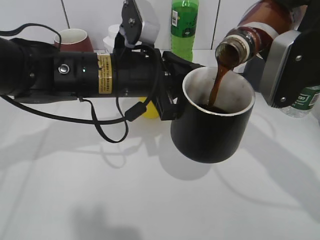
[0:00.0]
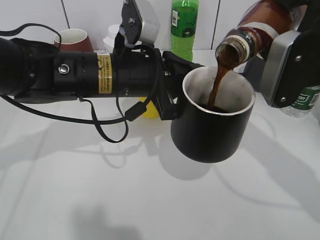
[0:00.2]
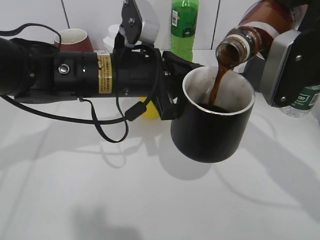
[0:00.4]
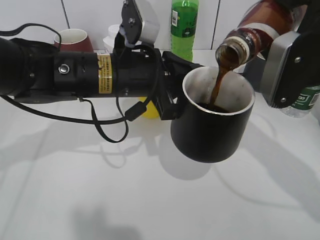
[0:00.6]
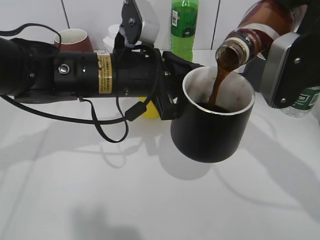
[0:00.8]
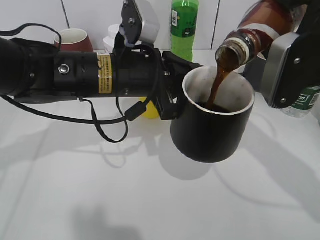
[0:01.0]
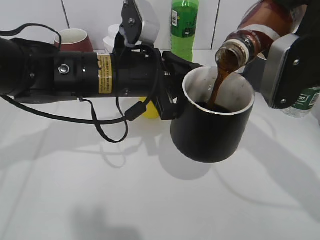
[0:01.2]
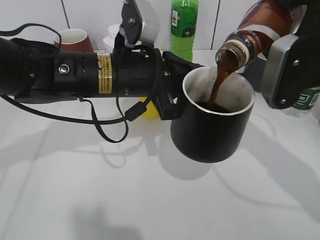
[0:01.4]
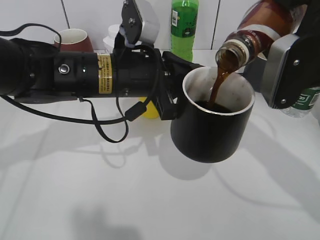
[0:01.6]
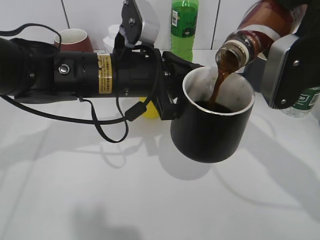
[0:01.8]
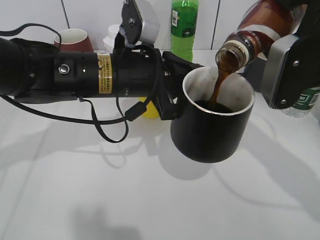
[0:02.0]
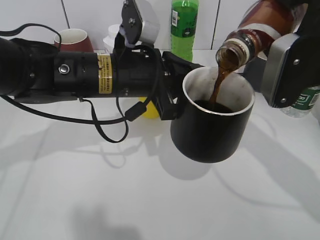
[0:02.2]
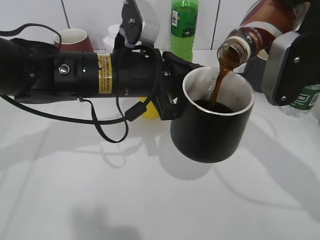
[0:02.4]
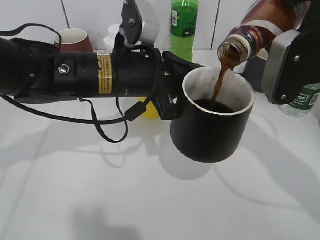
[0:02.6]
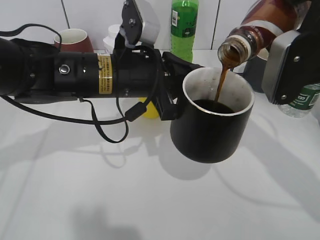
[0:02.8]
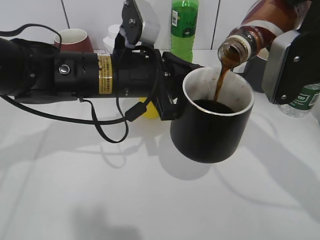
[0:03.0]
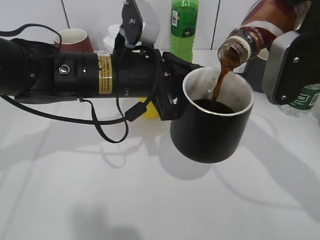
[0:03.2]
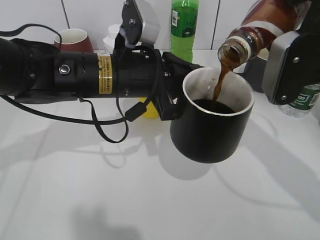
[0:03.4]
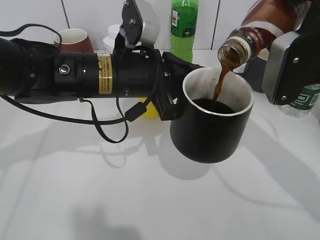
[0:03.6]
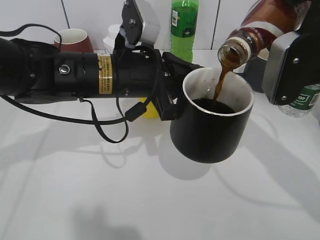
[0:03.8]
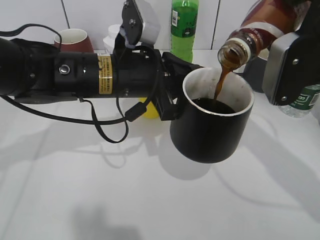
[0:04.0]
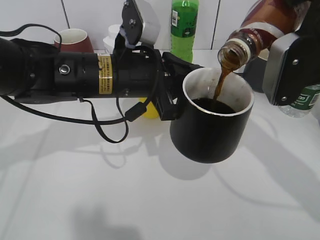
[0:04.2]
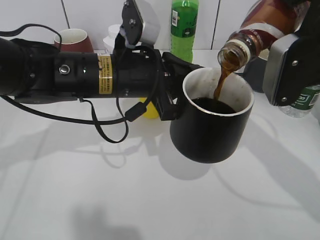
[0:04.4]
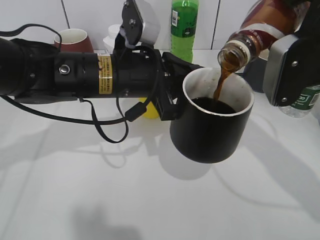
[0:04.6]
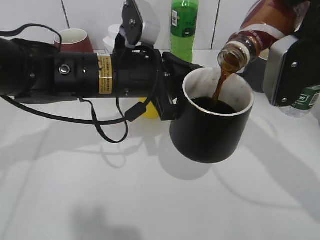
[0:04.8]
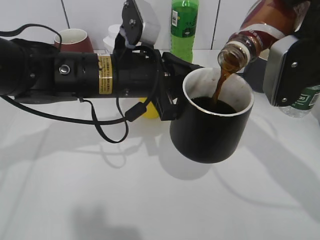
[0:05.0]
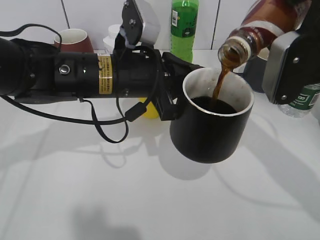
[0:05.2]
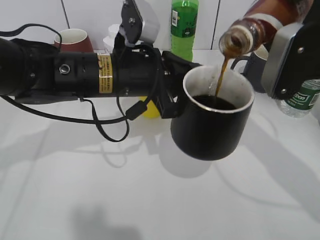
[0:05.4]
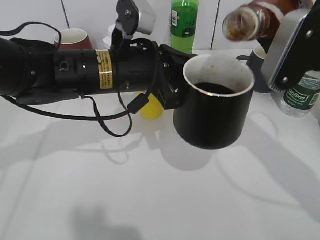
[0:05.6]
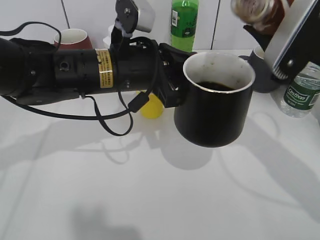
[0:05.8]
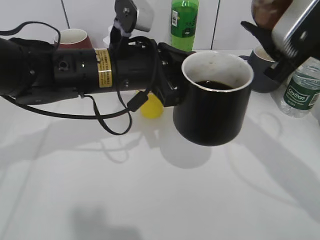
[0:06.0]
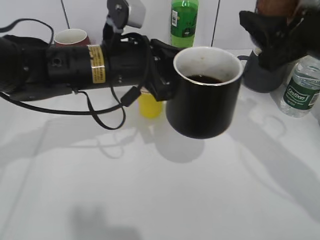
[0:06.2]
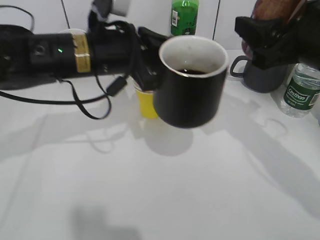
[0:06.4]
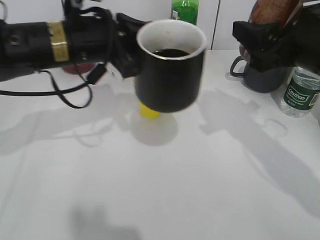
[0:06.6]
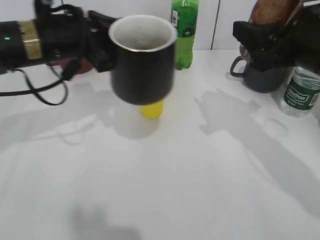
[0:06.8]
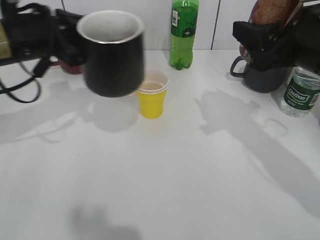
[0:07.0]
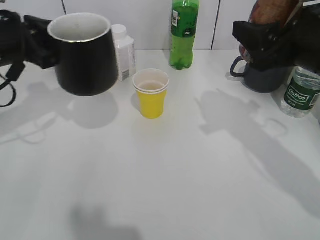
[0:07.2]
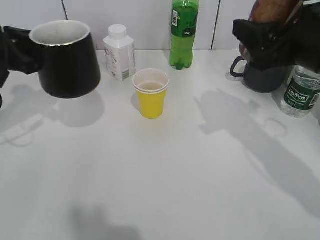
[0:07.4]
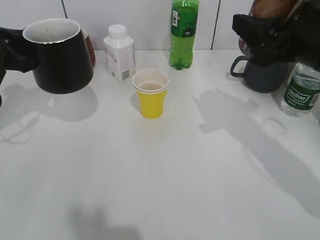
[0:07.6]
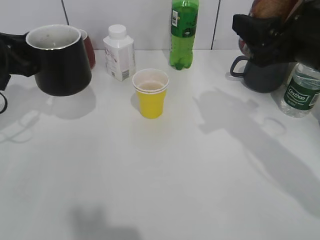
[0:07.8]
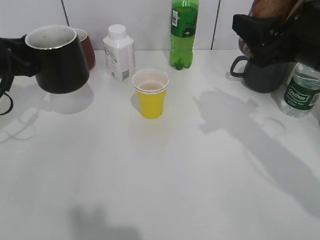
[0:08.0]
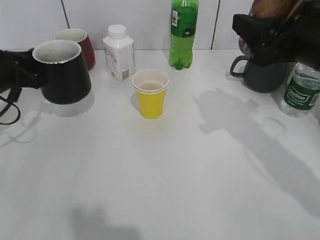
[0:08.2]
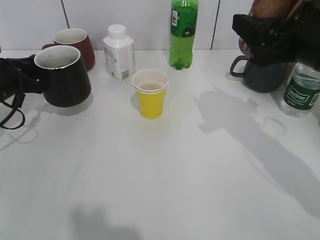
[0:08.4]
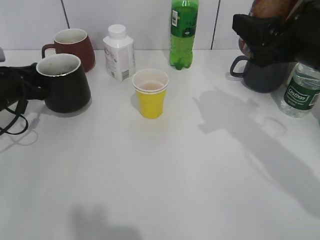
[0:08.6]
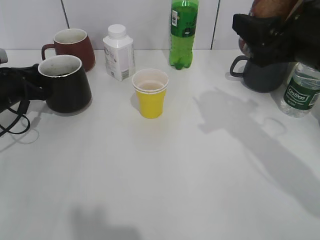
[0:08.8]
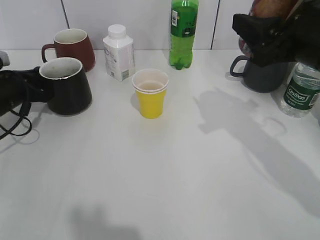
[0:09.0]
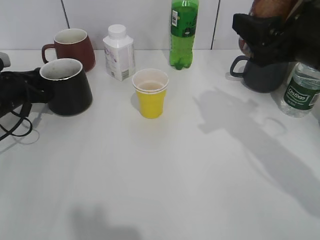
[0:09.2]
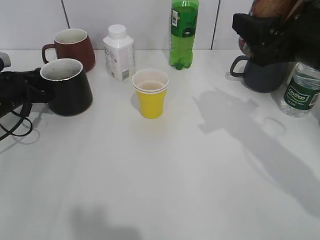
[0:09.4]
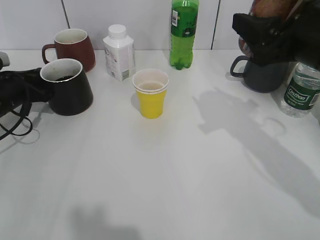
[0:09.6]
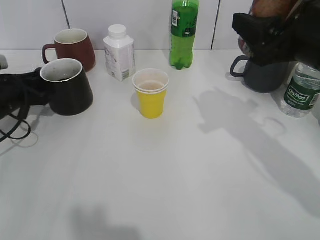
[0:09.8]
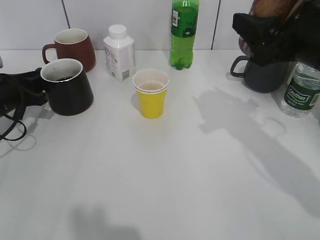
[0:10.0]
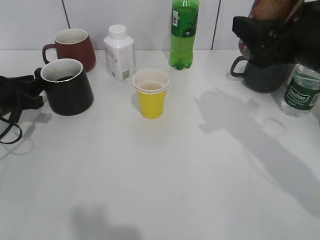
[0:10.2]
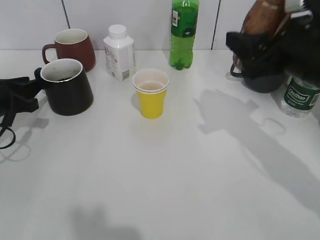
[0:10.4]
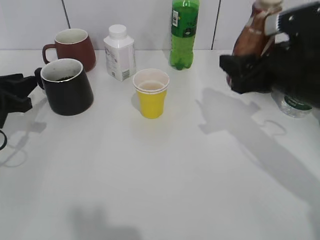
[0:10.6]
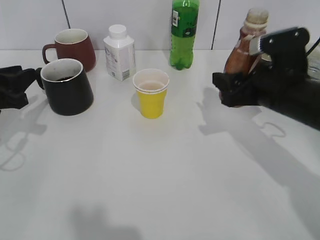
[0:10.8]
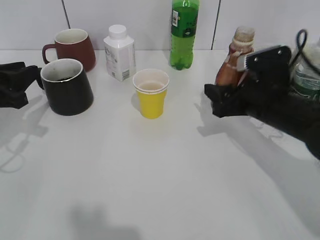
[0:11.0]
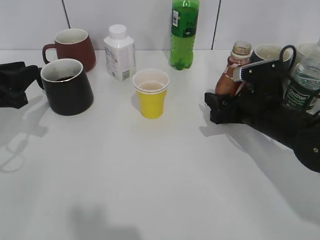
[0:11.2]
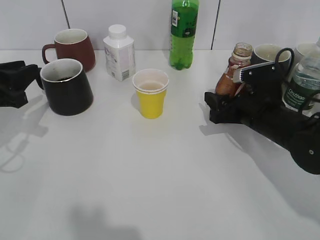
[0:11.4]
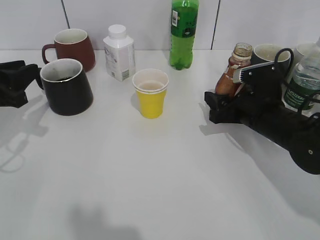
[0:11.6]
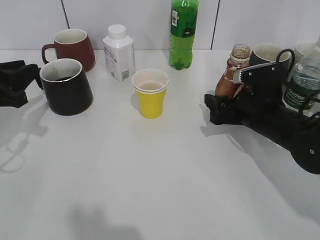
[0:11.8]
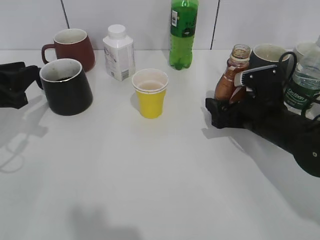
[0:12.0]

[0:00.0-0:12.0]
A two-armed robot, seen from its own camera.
Step, 0:00.0 to 0:05.6: Pour the coffee from bottle to cup with right gripper.
Step, 0:05.8 to 0:10.4: Place the black cup on the table with left gripper.
0:00.0 to 0:01.6: The two grippers keep their place.
0:01.6 to 0:03.0: Neither gripper changes place.
0:03.0 to 0:04.4: Both grippers stay put.
0:06.0 to 0:07.6: The left gripper moves to the left, some 20 cm.
0:07.6 to 0:09.0: The left gripper goes about 10 cm downward.
0:09.0 to 0:10.4: The left gripper changes place by about 5 cm, and opens its fingers.
0:10.4 to 0:12.0: The right gripper travels downward by roughly 15 cm, and opens up, while the left gripper ends up some 5 cm from where it was.

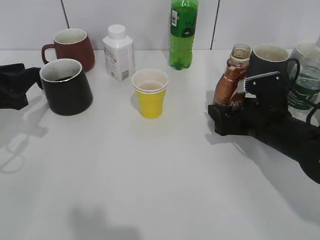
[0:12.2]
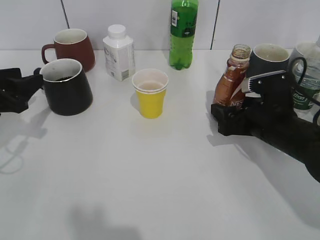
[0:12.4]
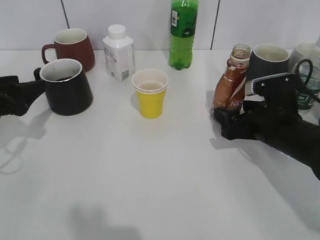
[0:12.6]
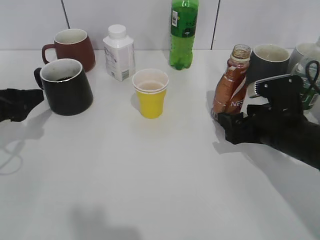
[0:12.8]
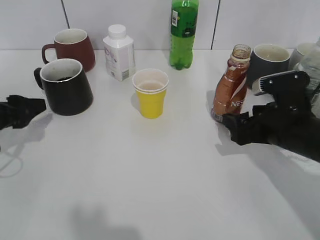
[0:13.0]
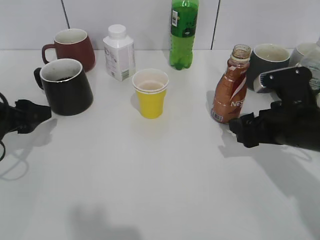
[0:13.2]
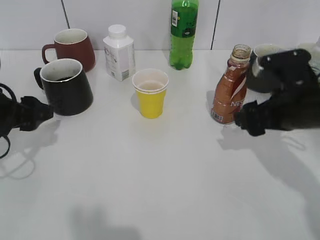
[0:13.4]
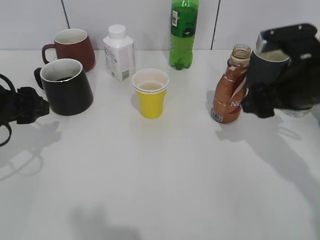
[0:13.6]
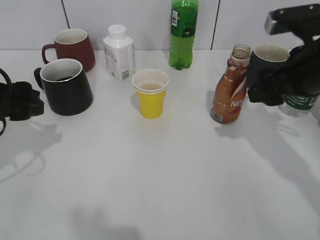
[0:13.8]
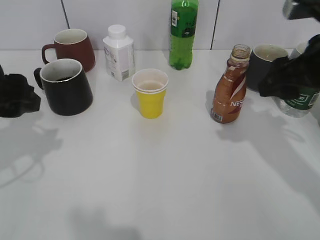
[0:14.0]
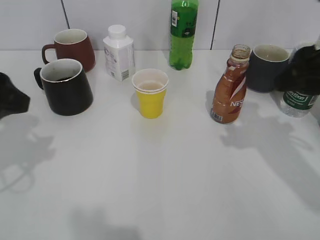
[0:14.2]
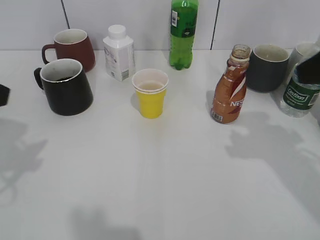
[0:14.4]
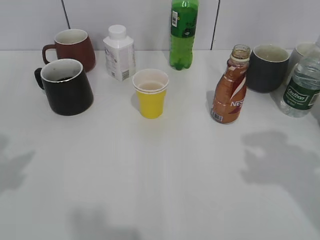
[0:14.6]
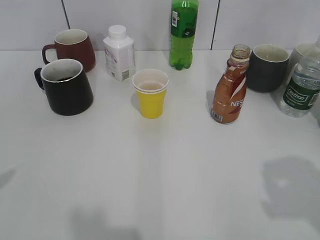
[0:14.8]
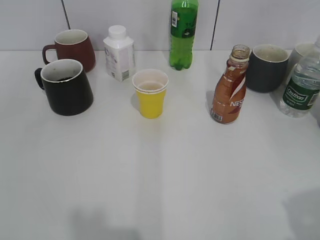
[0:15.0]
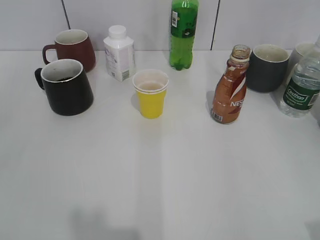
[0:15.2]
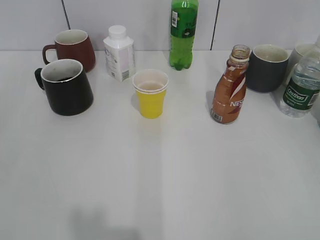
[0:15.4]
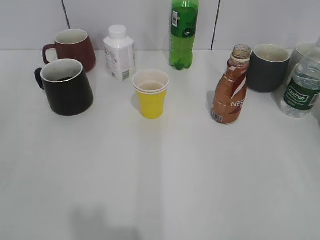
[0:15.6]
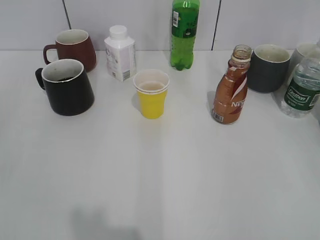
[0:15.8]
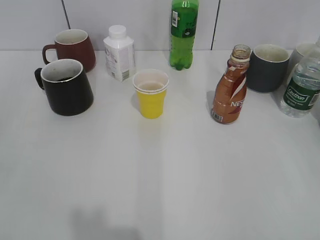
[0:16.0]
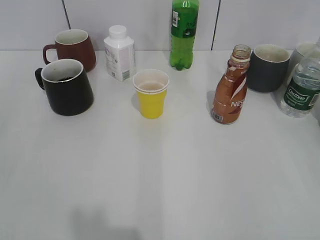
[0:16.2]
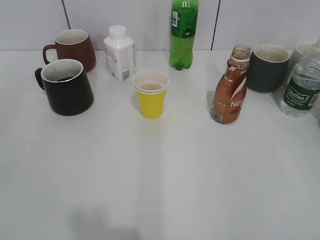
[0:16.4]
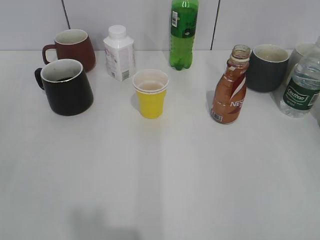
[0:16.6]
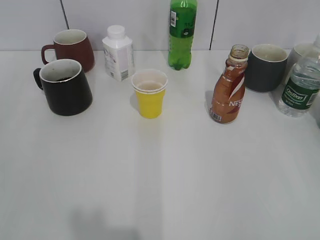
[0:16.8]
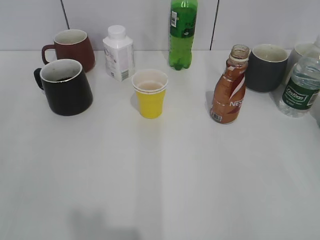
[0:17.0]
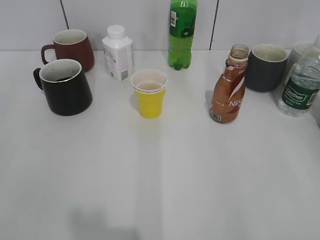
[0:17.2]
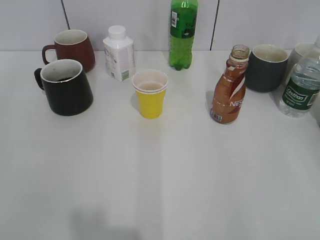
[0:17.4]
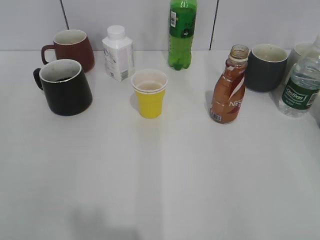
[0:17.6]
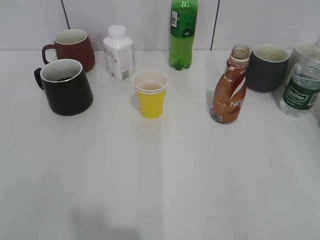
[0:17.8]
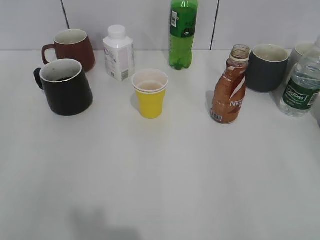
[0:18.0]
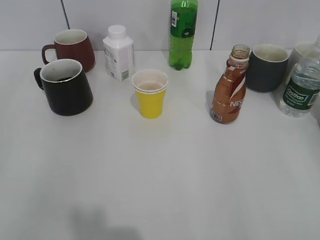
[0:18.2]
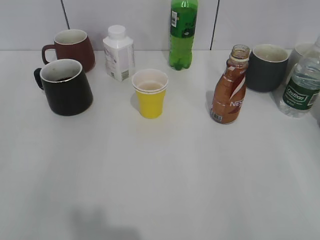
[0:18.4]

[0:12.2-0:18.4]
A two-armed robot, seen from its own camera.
0:12.2 to 0:13.8: The left gripper heads upward, covering roughly 5 cm, and opens its fingers. Meanwhile the right gripper shifts approximately 15 cm upward.
0:13.8 to 0:15.4: The right gripper shifts approximately 30 cm backward and to the right; the left gripper heads backward, covering approximately 20 cm.
0:15.4 to 0:16.8: The grippers move only a little.

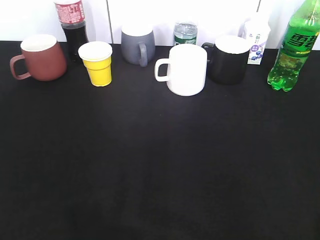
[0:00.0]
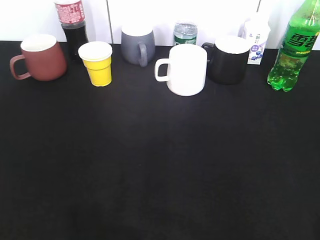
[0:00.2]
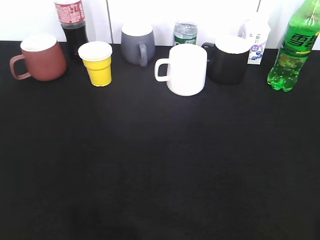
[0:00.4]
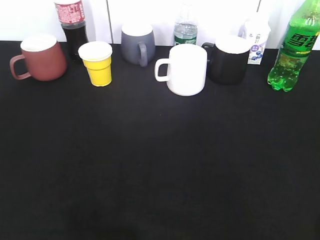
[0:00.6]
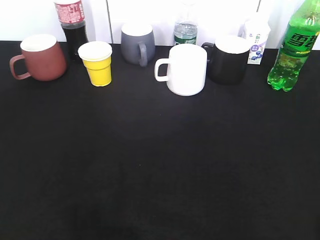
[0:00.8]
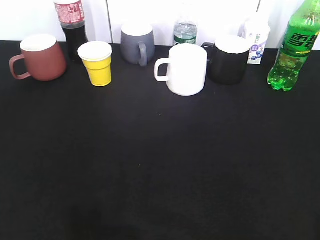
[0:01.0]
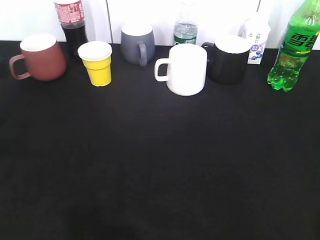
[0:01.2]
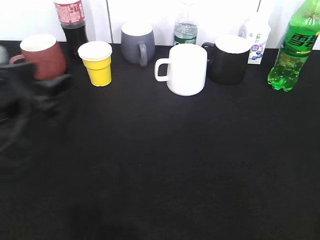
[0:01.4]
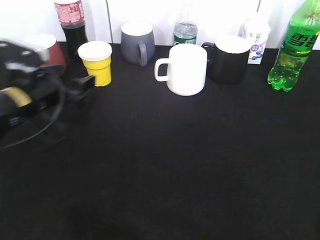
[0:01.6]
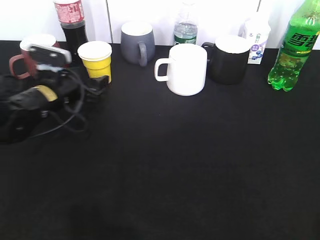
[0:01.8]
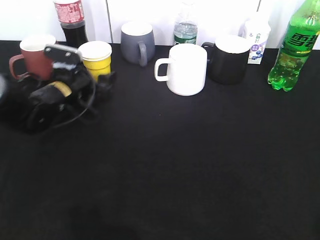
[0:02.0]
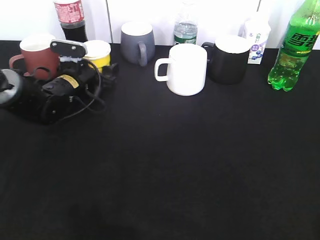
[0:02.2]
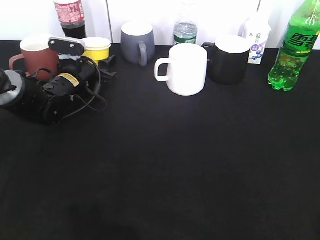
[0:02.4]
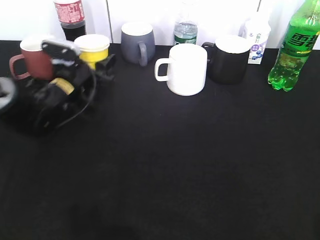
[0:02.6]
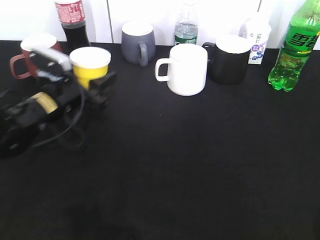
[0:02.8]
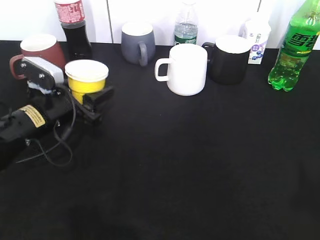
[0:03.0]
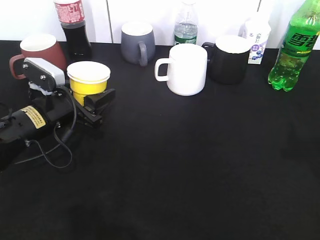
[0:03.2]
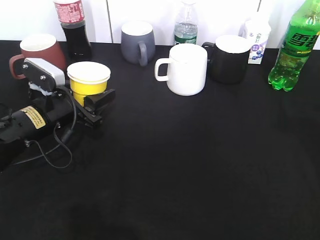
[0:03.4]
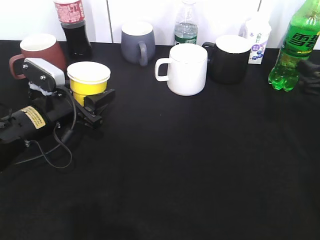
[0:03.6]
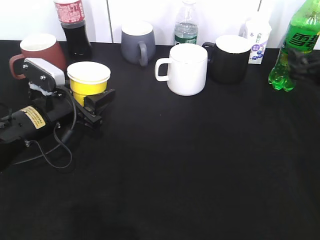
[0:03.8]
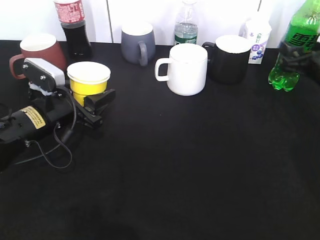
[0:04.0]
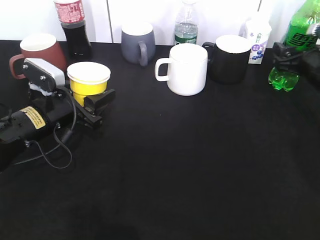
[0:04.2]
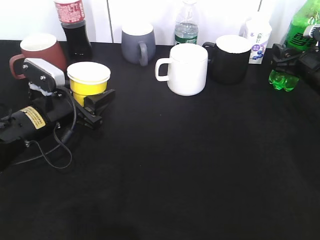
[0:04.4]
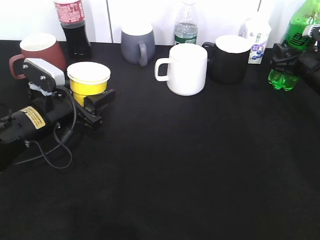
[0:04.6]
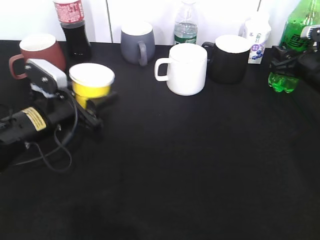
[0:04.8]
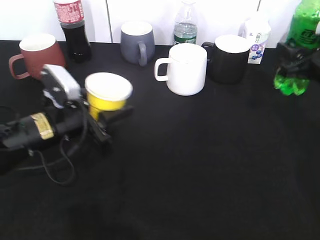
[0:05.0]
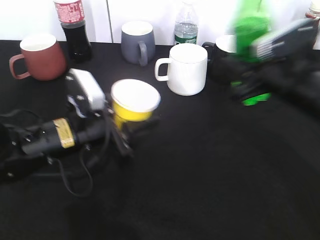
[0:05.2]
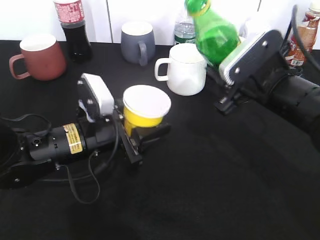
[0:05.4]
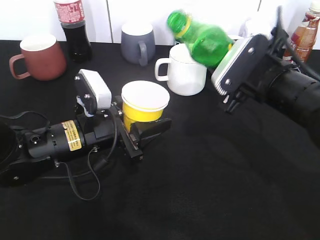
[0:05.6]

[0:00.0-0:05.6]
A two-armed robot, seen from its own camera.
Step, 0:00.0 to 0:02.2: Grasp the yellow paper cup with left gripper.
Step, 0:02.4 to 0:03.4: Lift the yellow paper cup with left gripper.
0:00.0 to 0:01.4: The left gripper is displaced forward by about 25 cm.
0:01.4 to 0:02.8: The left gripper heads forward and downward, covering about 10 cm, and closes up.
0:02.8 to 0:04.2: The right gripper goes approximately 40 cm forward.
0:04.2 to 0:05.6: The right gripper travels to the left, backward and upward by roughly 20 cm, and closes; the left gripper moves to the right, approximately 10 cm.
